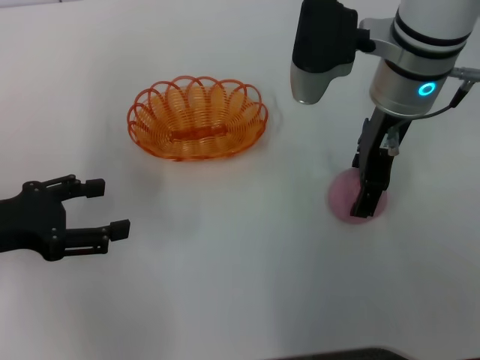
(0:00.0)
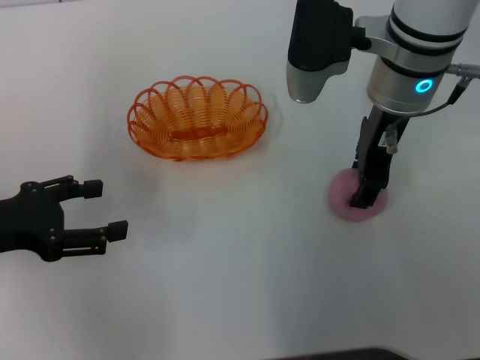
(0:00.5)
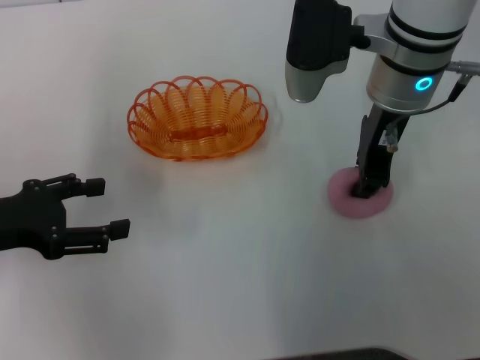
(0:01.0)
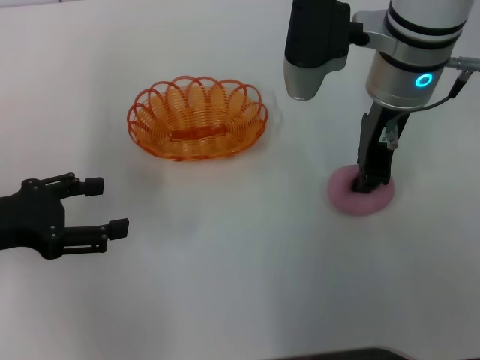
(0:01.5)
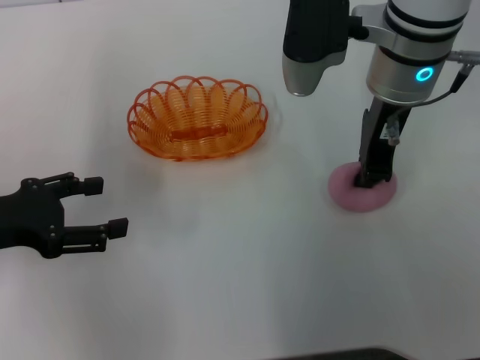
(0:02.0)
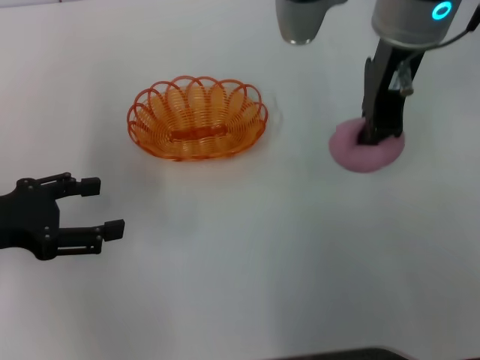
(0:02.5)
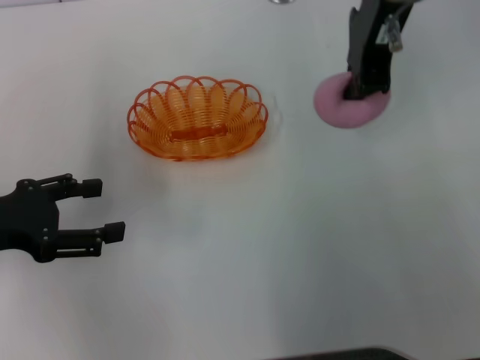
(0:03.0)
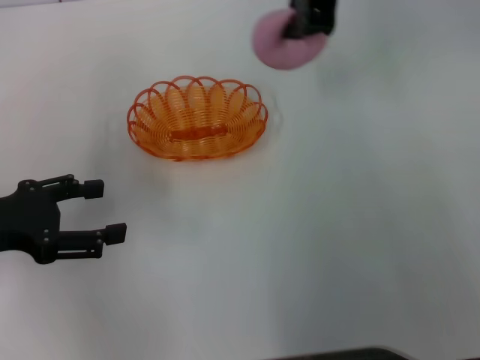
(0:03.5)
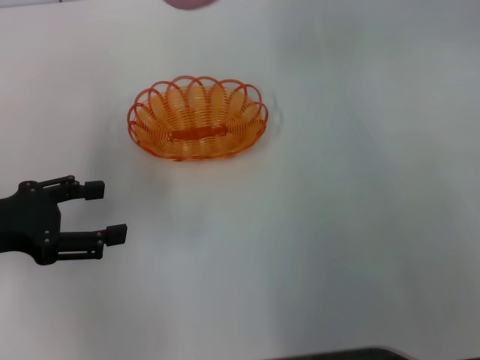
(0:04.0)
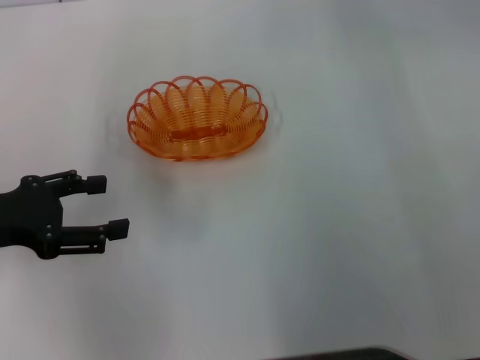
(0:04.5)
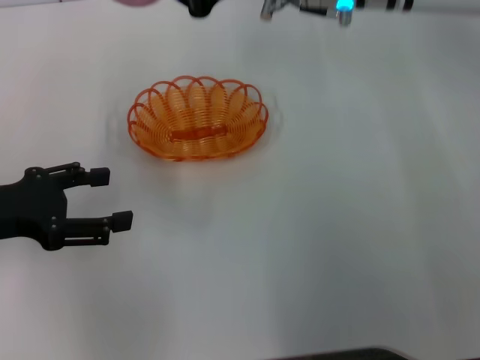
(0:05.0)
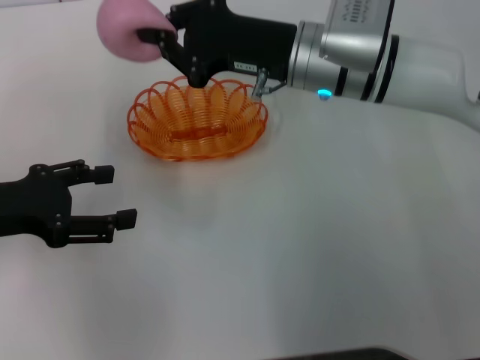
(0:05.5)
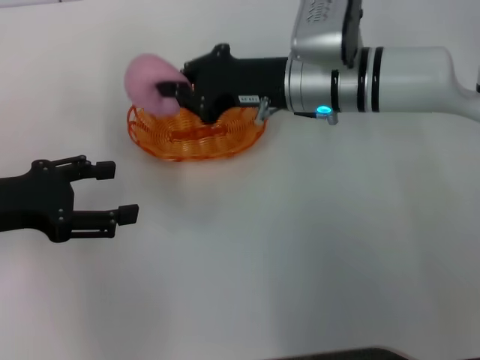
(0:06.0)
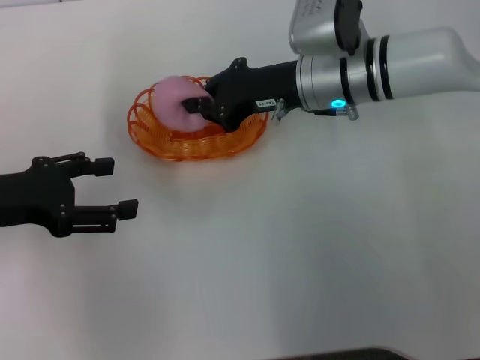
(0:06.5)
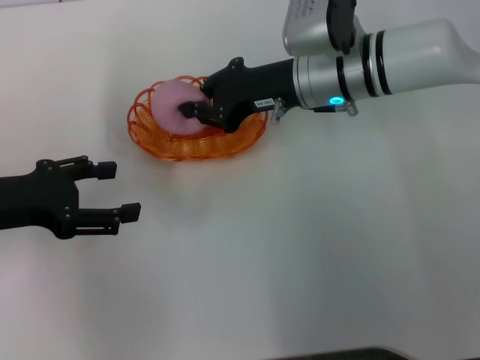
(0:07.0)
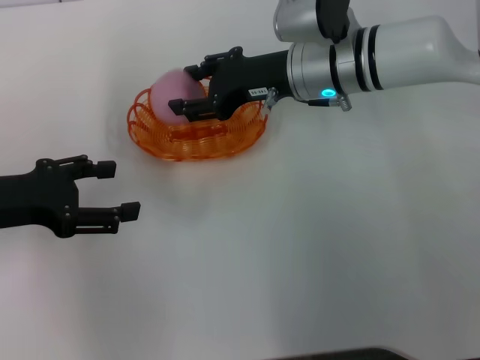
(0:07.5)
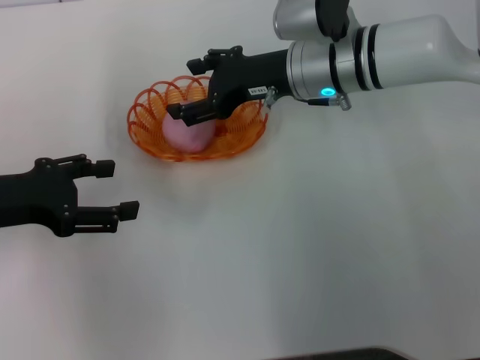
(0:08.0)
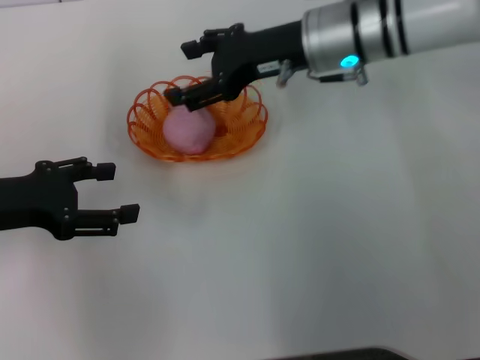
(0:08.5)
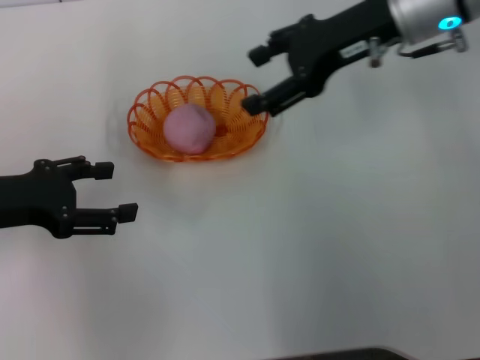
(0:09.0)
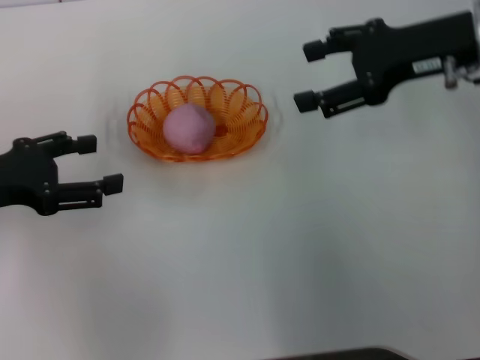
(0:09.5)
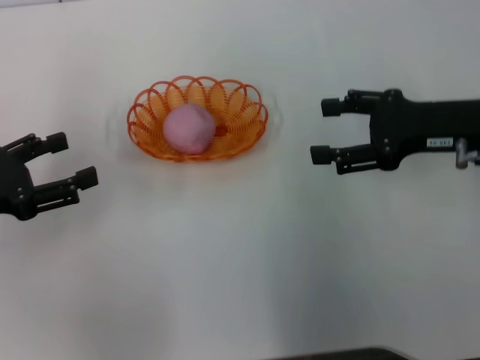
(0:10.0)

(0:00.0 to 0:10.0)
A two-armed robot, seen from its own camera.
Step, 0:00.0 - 0:02.5: Pick up the peach with the right gripper.
Step, 0:03.0 - 0:09.0: Place the peach into the basket with the right gripper.
0:00.0 - 0:02.0: The right gripper closes its fingers.
0:02.0 - 0:04.0: The right gripper moves upward and to the left, about 15 cm.
0:04.0 - 0:06.0: The right gripper heads downward, covering some 25 cm.
0:06.0 - 0:08.0: The right gripper opens its fingers.
0:08.0 - 0:10.0: The right gripper shifts some 20 cm to the right and backward.
